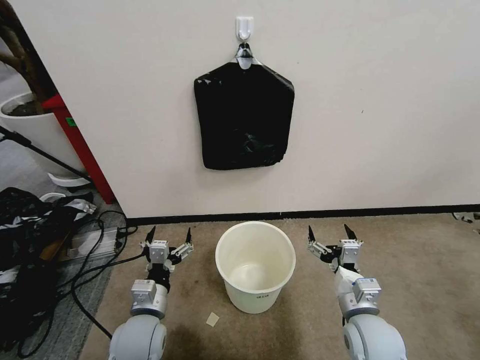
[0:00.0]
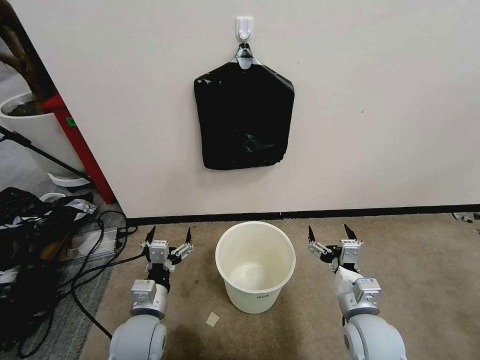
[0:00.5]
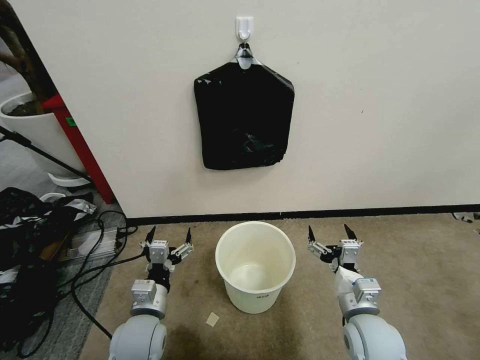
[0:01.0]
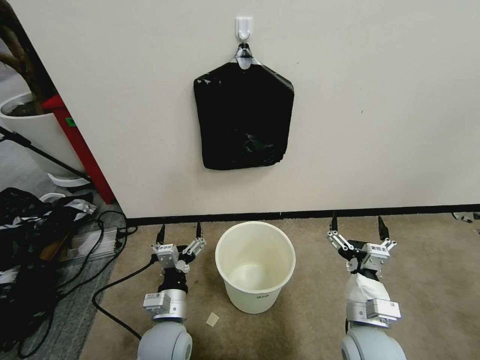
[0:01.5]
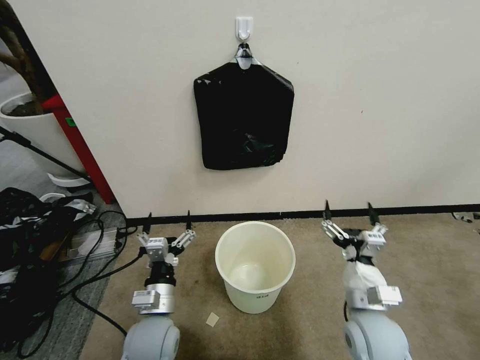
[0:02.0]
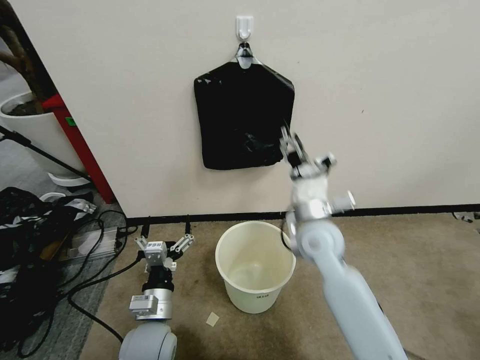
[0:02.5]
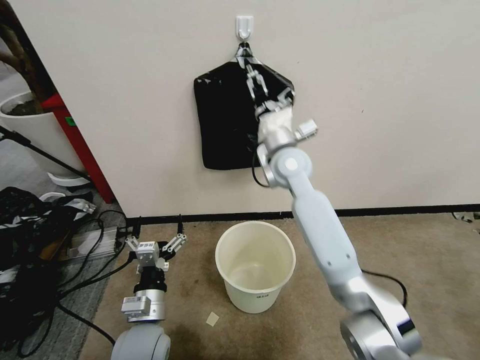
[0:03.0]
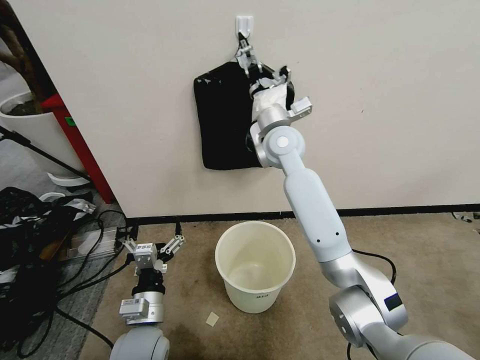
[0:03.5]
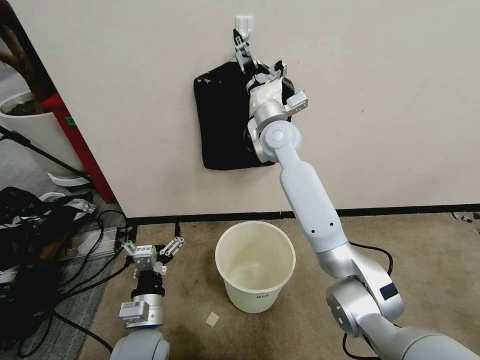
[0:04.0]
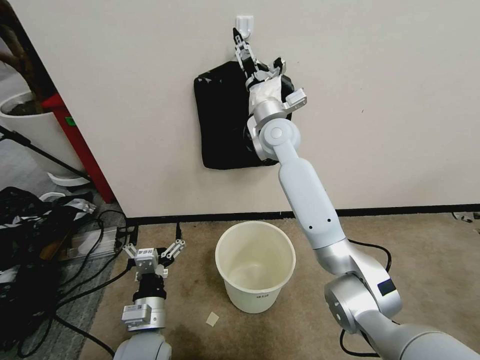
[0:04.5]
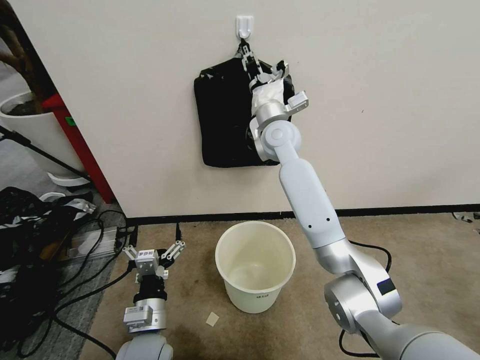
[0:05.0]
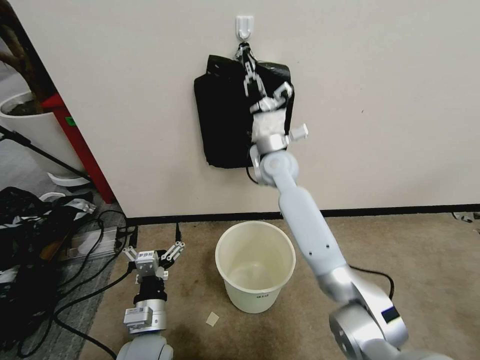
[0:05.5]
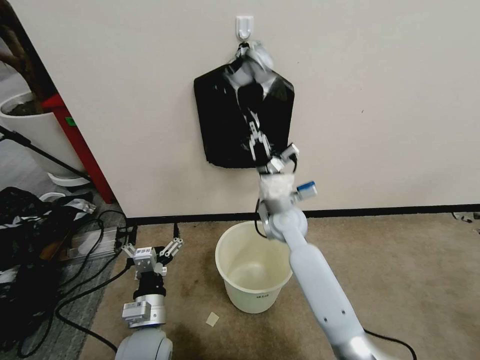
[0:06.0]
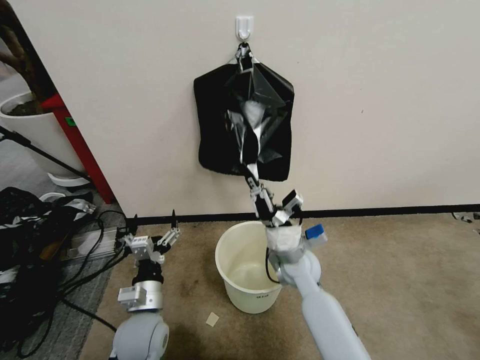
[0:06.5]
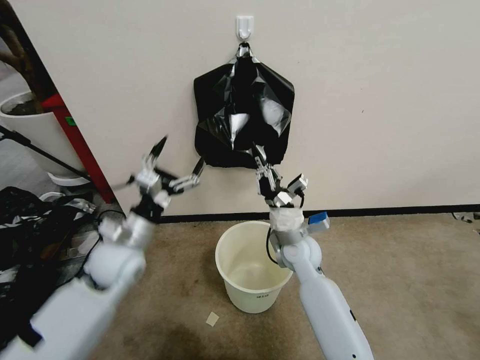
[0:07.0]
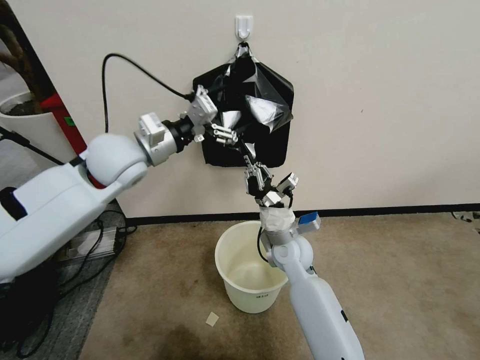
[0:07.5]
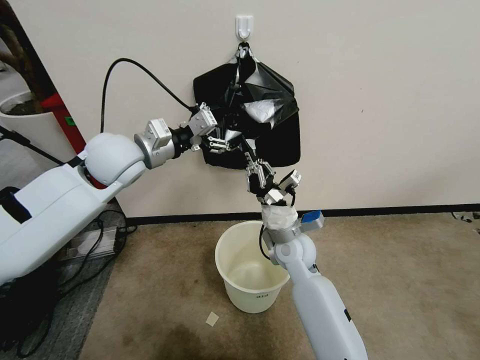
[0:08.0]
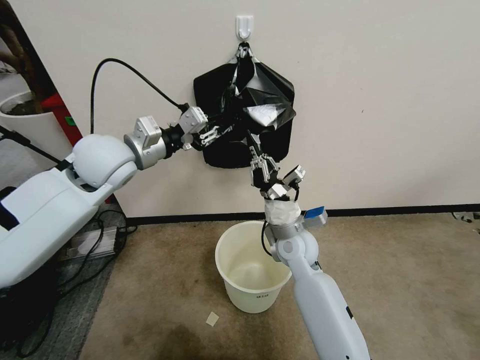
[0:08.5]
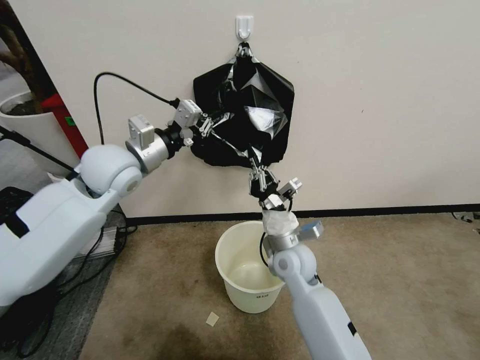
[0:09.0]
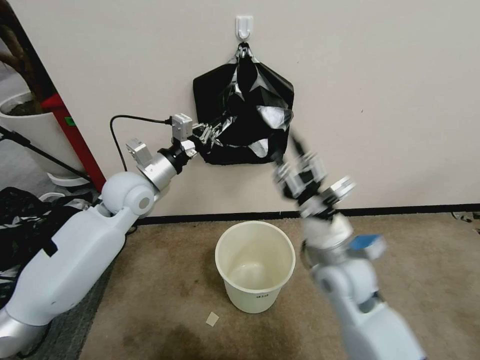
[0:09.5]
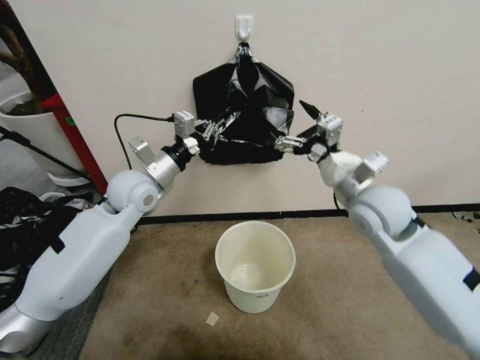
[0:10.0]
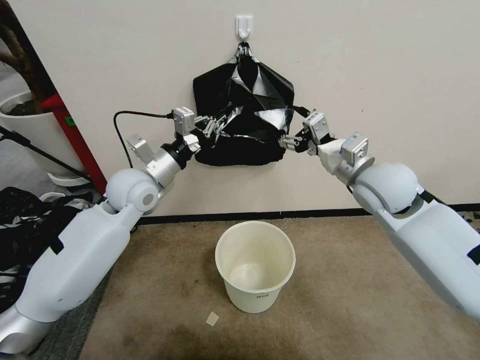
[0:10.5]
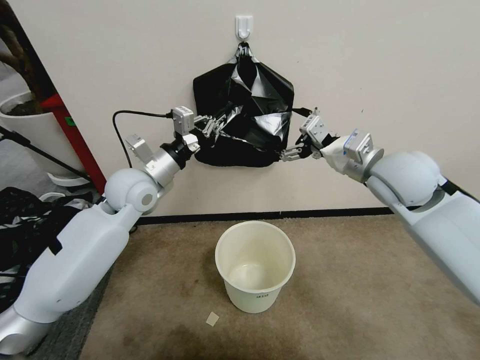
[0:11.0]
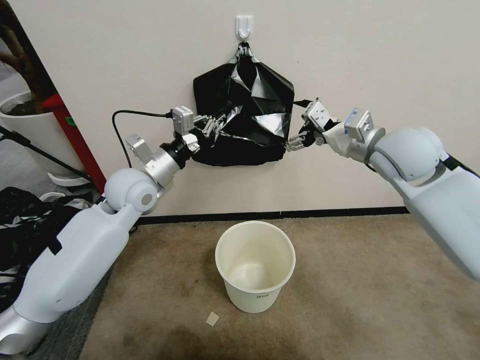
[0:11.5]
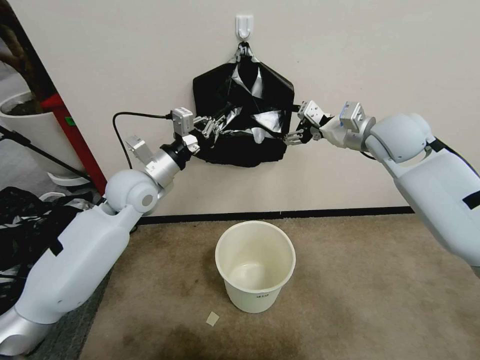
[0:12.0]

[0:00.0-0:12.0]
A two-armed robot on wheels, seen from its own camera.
Task of the whole recording: Place a trash bag onto the trash bin.
0:02.0 to 0:04.0: The right gripper moves forward, upward and to the left, some 40 cm.
0:04.0 to 0:06.0: The right gripper travels downward and backward by approximately 20 cm, and closes its fingers.
0:06.0 to 0:08.0: The right gripper heads backward, covering some 5 cm; the left gripper goes approximately 40 cm upward and forward.
0:08.0 to 0:10.0: The right gripper goes some 20 cm upward and to the right, and opens its fingers. Meanwhile the left gripper is displaced downward by roughly 10 cm, and closes its fingers.
0:10.0 to 0:12.0: The right gripper heads forward, upward and to the right, covering roughly 15 cm.

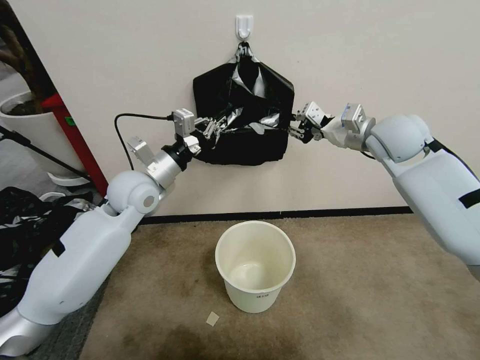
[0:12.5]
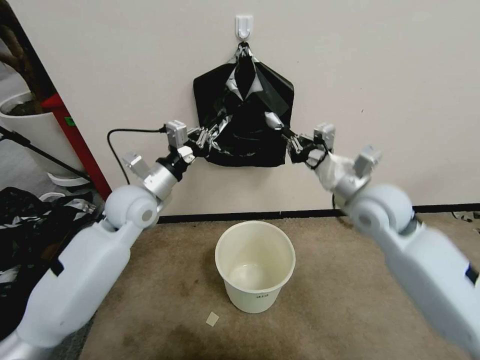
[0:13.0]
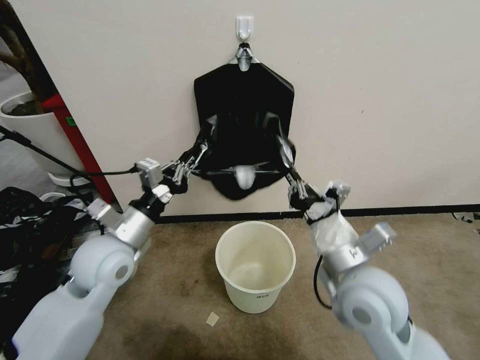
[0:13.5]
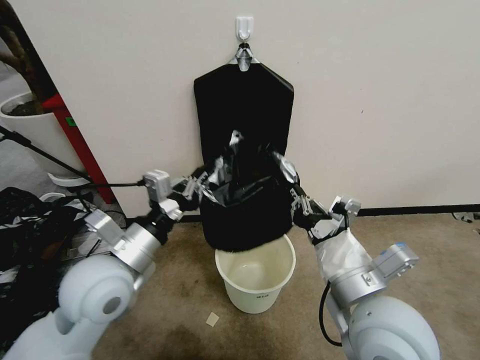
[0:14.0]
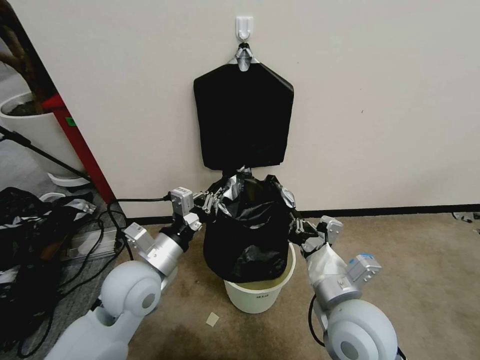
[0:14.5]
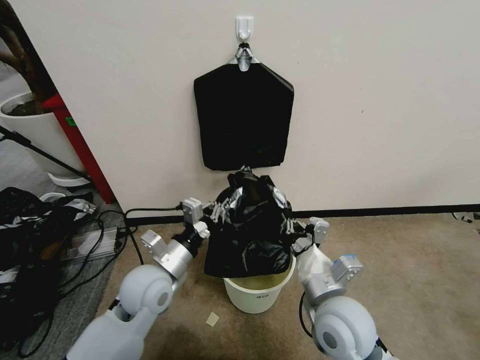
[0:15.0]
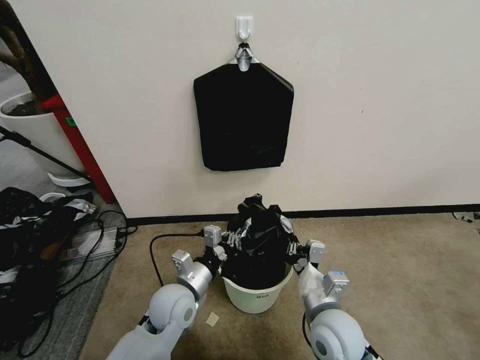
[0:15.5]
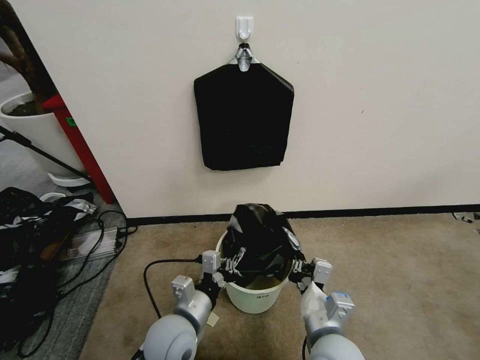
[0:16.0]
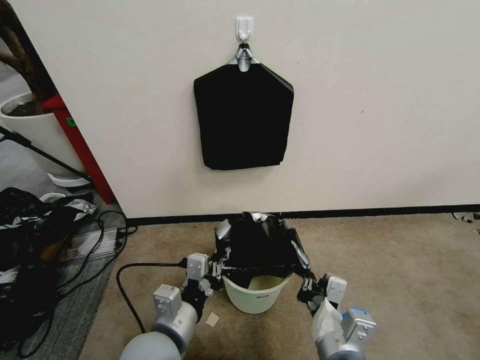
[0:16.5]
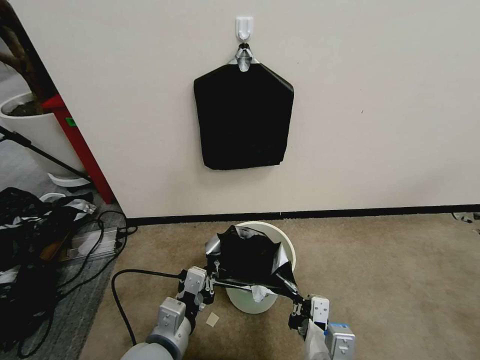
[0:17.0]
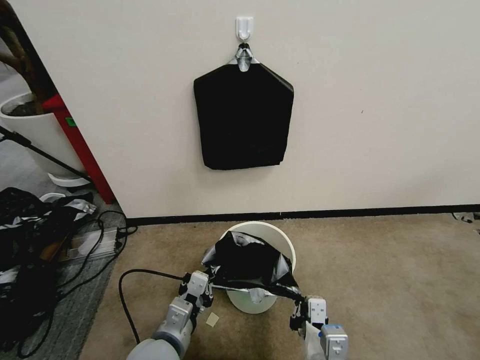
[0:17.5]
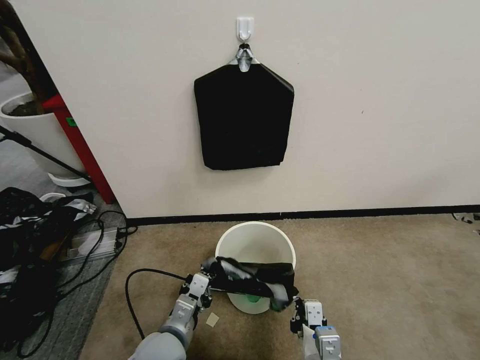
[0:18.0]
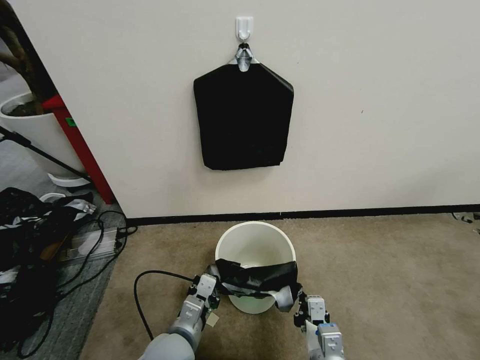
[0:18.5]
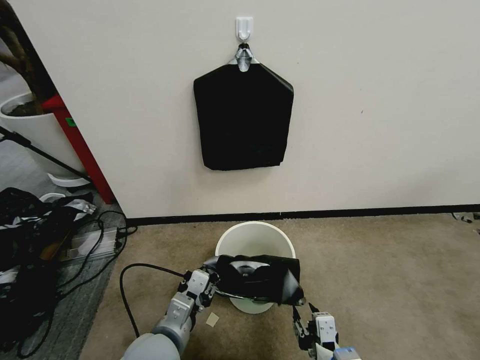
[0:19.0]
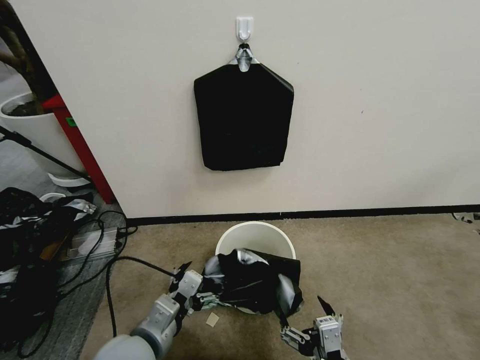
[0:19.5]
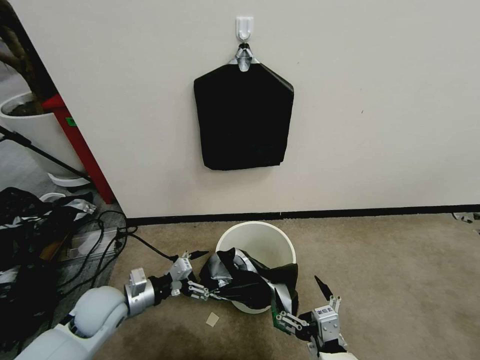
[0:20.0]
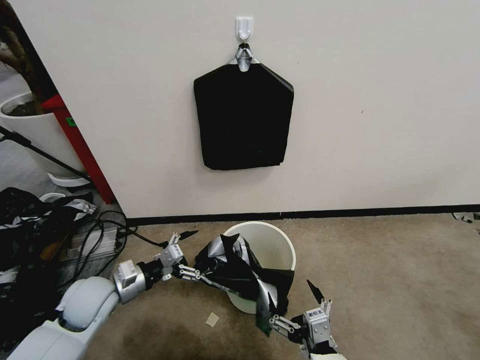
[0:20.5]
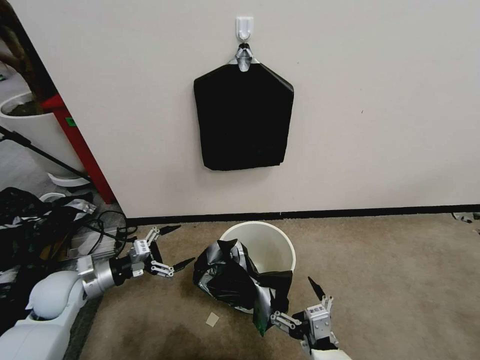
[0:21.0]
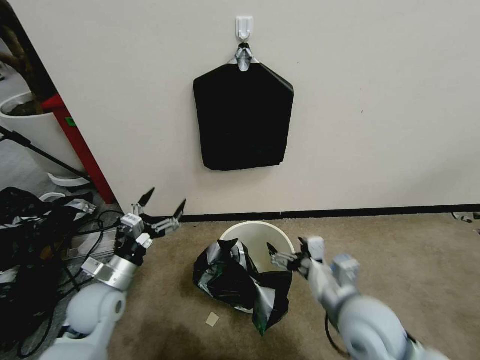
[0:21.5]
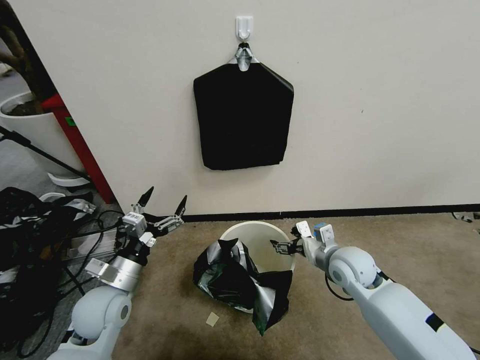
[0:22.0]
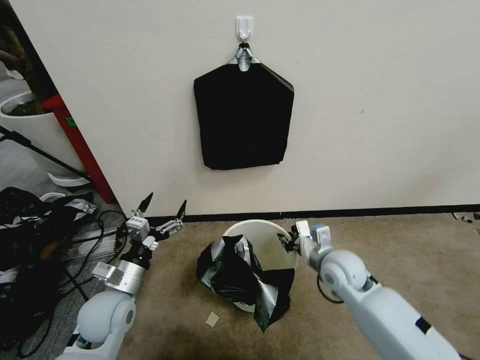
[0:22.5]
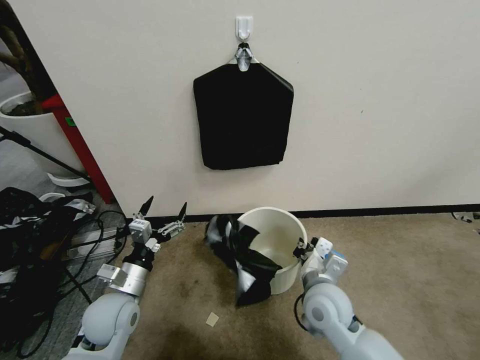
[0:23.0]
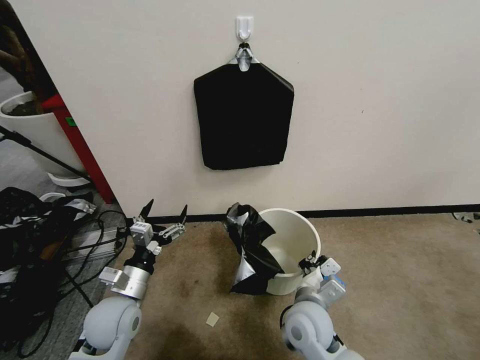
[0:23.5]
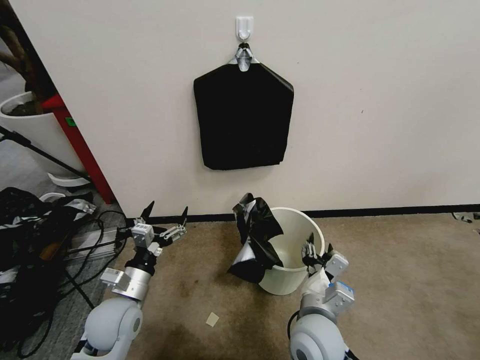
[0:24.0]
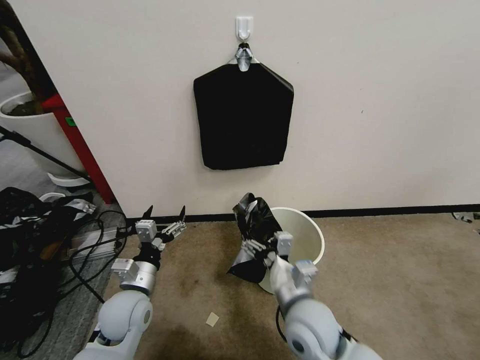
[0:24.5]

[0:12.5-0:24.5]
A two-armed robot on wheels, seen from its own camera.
Task of the whole recording: Place a trash bag onto the trash bin.
0:12.5 to 0:14.5: The right gripper heads backward, downward and to the left, covering about 35 cm; the left gripper is displaced backward and downward by some 20 cm.
0:14.5 to 0:16.5: The two grippers go about 10 cm backward.
0:16.5 to 0:18.5: The two grippers go about 10 cm downward.
0:18.5 to 0:20.5: The left gripper heads to the left and forward, covering approximately 20 cm, and opens its fingers. The right gripper travels upward and backward by roughly 10 cm, and opens its fingers.
0:20.5 to 0:22.5: The right gripper heads forward, covering approximately 30 cm, and closes its fingers.
0:22.5 to 0:24.5: The right gripper shifts some 15 cm backward and to the left, and opens.

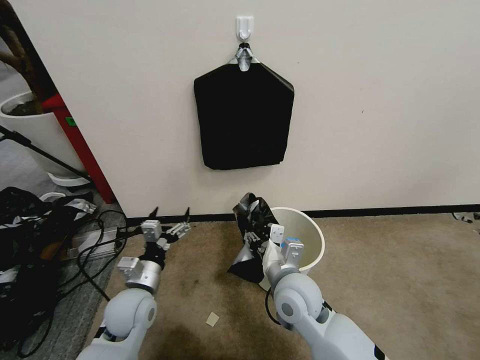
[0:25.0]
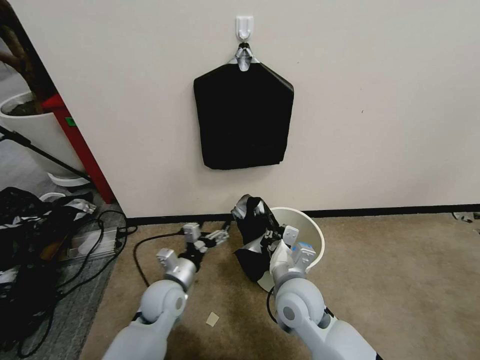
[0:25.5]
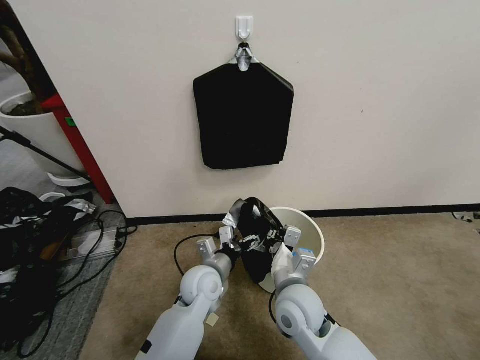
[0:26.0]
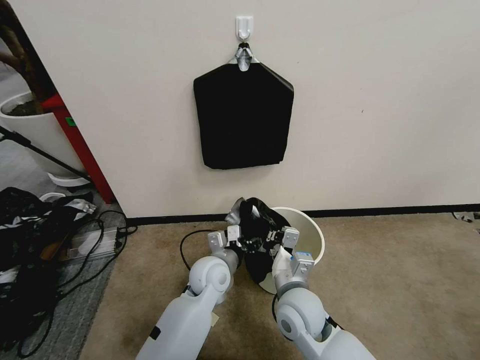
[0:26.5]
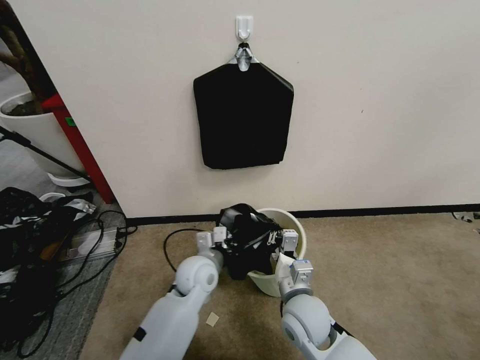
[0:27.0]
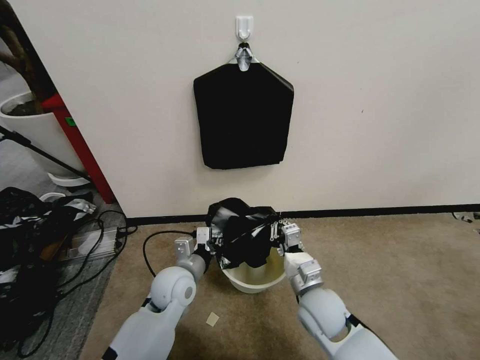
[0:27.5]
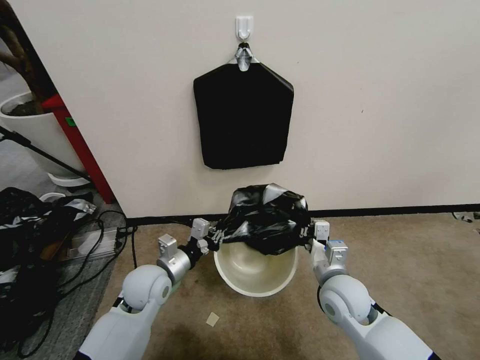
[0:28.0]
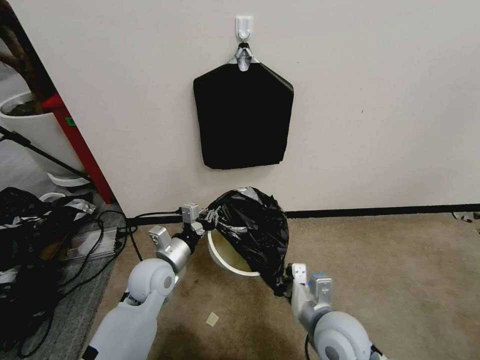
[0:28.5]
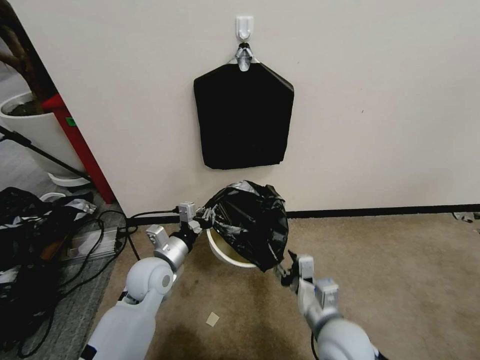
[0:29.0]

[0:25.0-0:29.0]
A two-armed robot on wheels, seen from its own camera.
Task of the whole recording: Place a trash bag onto the trash bin.
0:25.0 to 0:27.0: The left gripper moves to the right and forward, roughly 15 cm, and closes. Meanwhile the right gripper ends up some 5 cm from where it was, and closes up.
0:27.0 to 0:29.0: The right gripper heads to the right and backward, covering approximately 10 cm, and opens its fingers; the left gripper shifts about 10 cm to the left.
